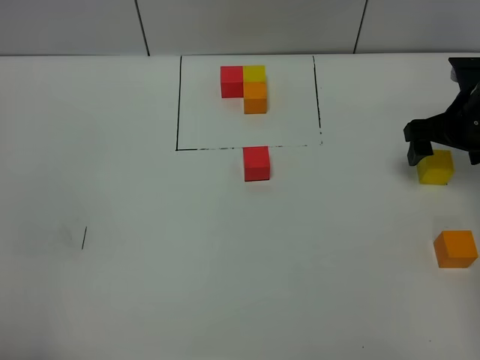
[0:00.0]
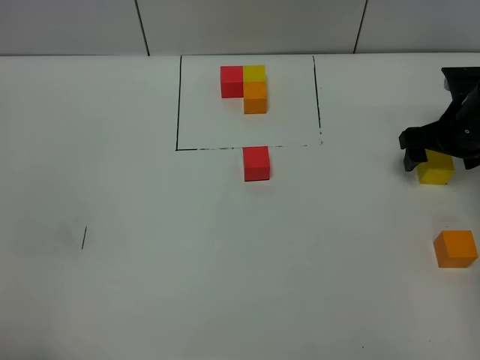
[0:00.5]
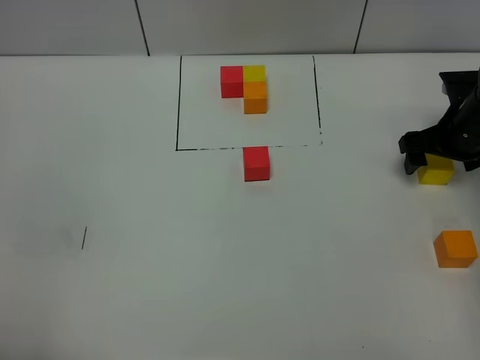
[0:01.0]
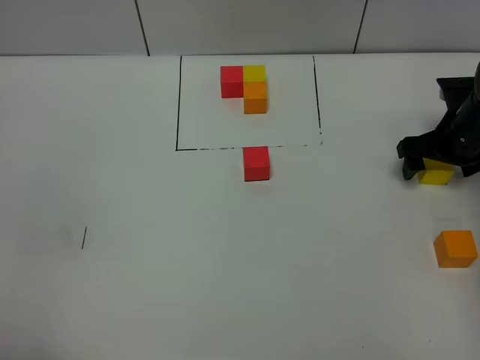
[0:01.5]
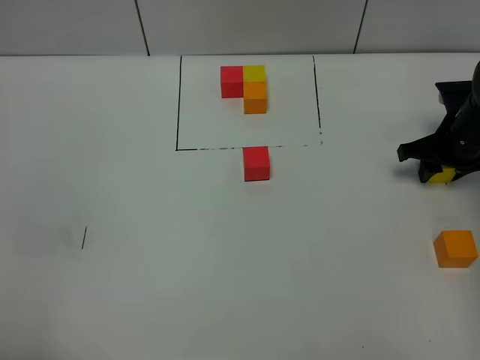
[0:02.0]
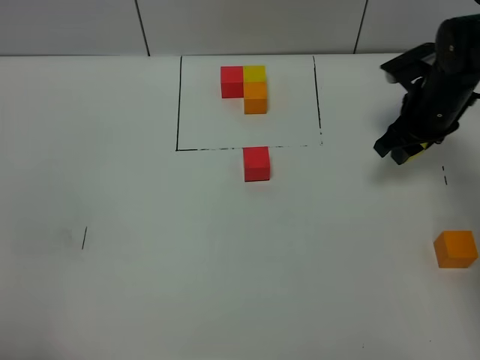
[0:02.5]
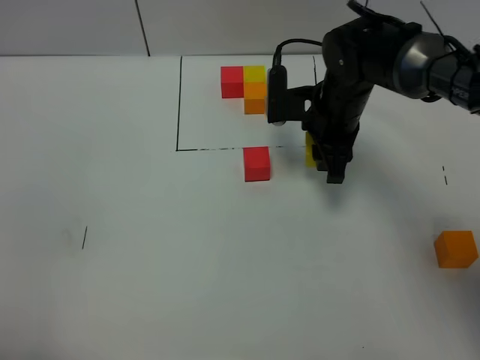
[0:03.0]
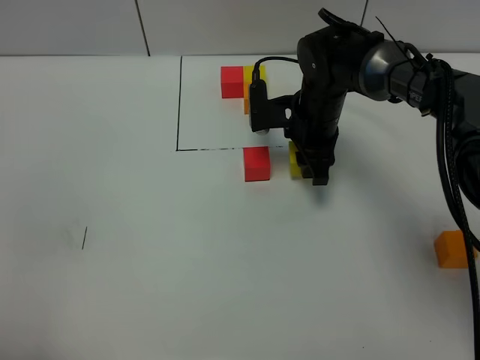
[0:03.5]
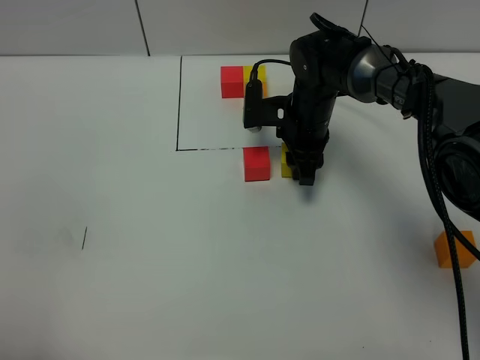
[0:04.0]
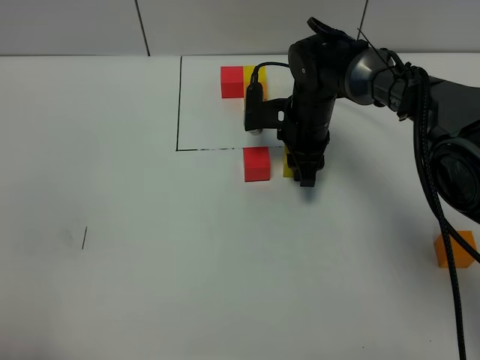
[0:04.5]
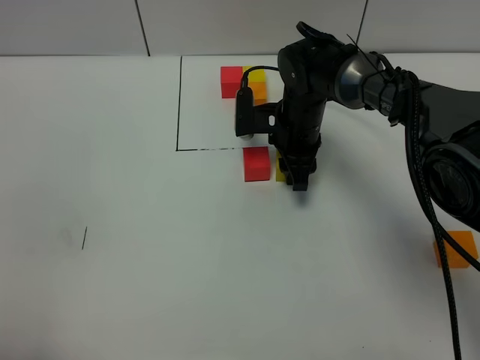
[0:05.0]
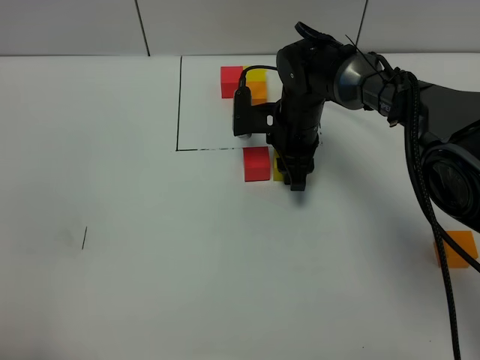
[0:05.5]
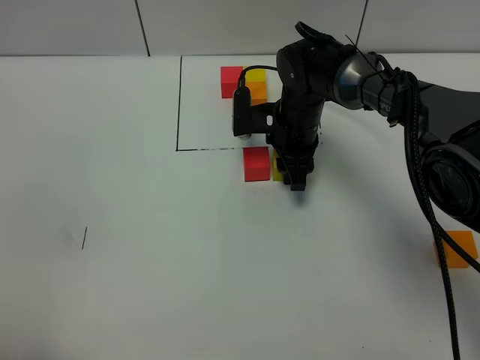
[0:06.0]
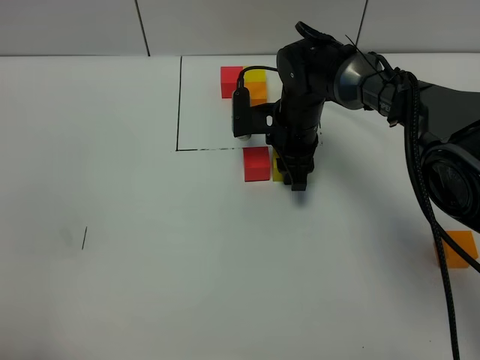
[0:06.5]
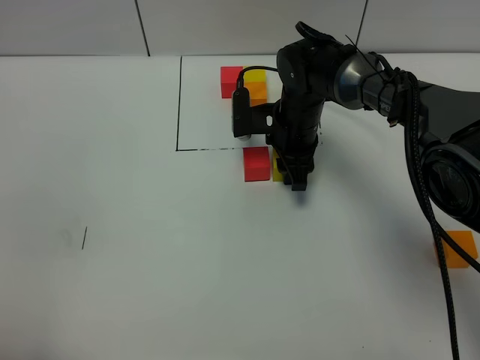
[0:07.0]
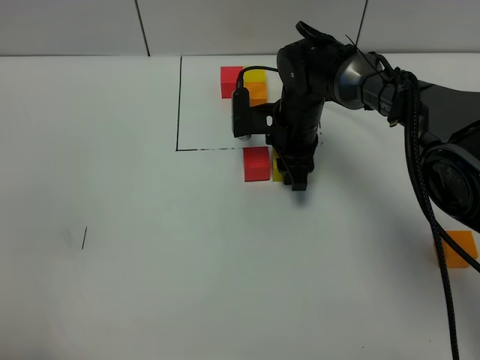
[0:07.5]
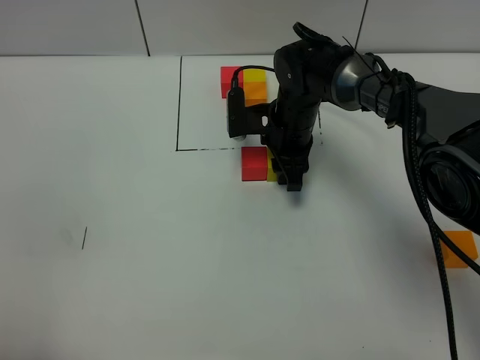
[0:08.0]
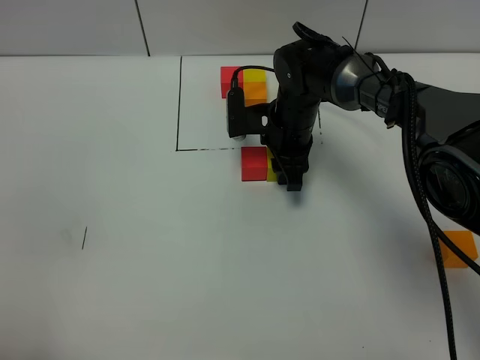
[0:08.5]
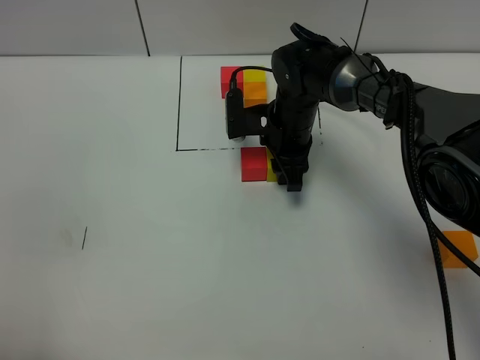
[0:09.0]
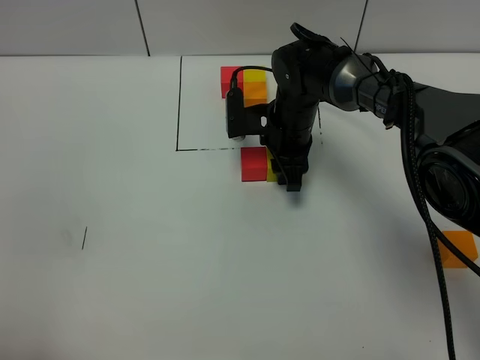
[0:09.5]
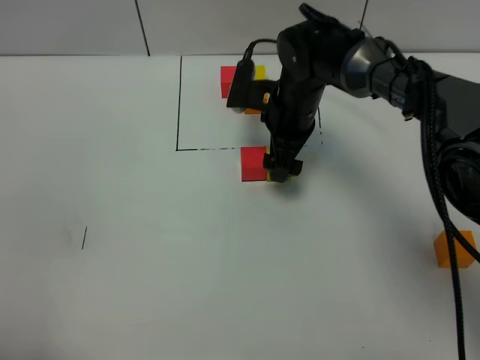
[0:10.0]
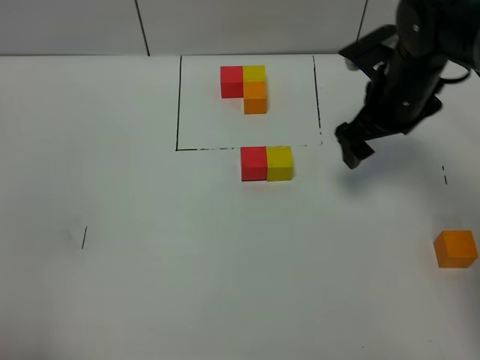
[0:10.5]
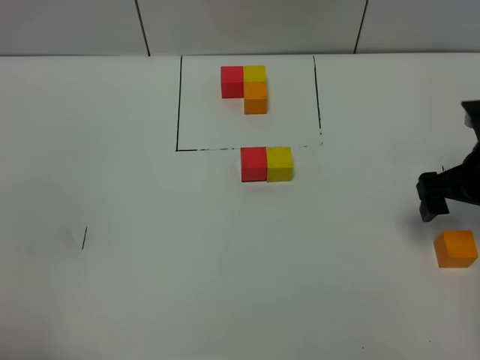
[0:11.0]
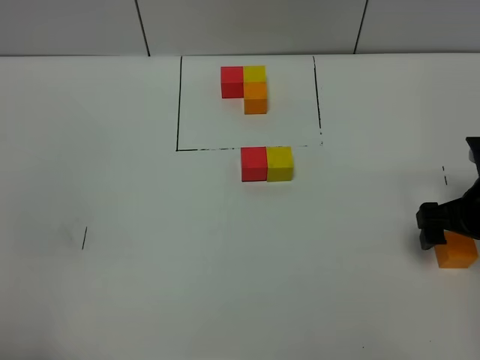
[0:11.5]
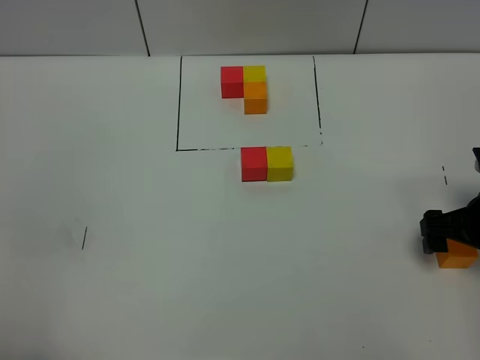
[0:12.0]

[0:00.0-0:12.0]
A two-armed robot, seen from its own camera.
Task of the whole recording: According to the building block template in front, assemble the scattered blocks together.
Step, 0:00.0 to 0:09.5: Put the yellow build block on the right of the red build block.
0:00.0 to 0:02.0: The right gripper changes place by approximately 5 cm, and closes up.
0:02.0 to 0:04.0: The right gripper is displaced to the left by roughly 20 cm.
0:04.0 to 0:06.0: There are only small adjustments of the grippers.
0:06.0 to 0:08.0: The two grippers keep their place.
0:08.0 to 0:10.0: The right gripper opens its fingers.
0:10.0 to 0:12.0: The right gripper heads to the right and backward, covering some 30 cm.

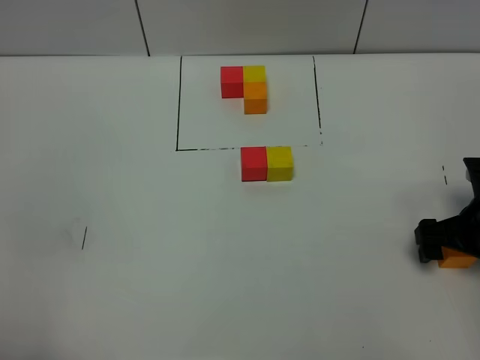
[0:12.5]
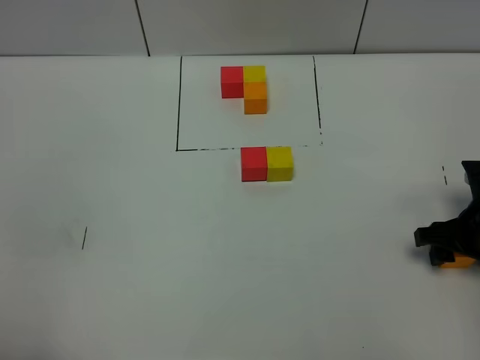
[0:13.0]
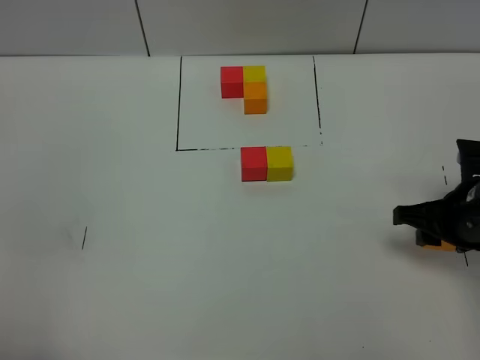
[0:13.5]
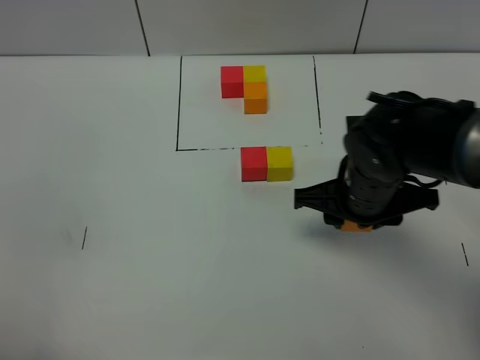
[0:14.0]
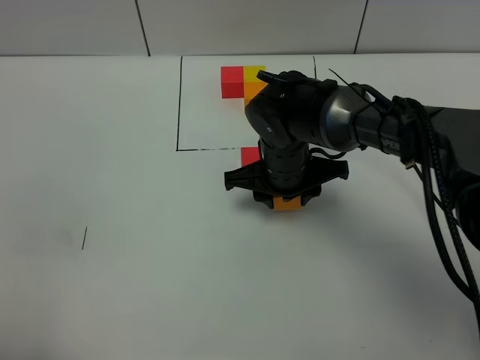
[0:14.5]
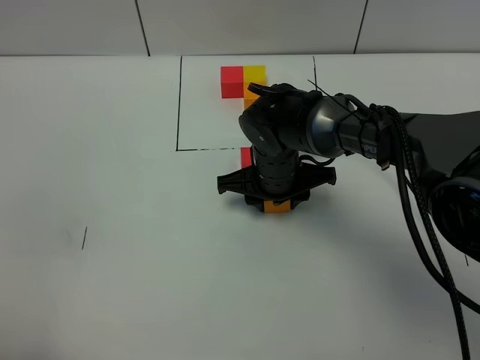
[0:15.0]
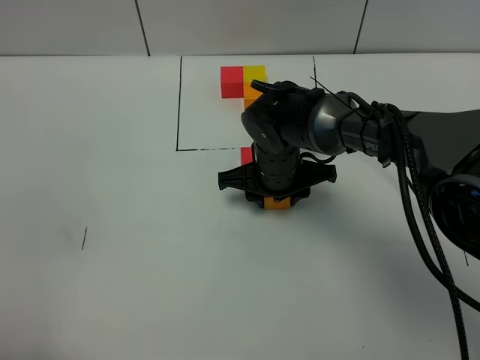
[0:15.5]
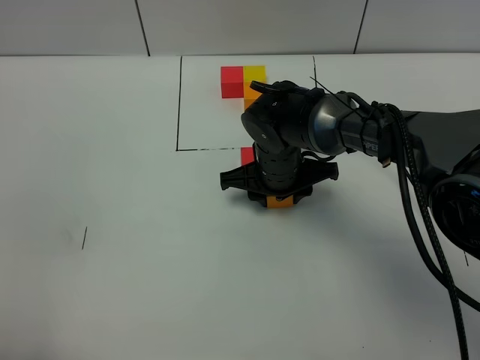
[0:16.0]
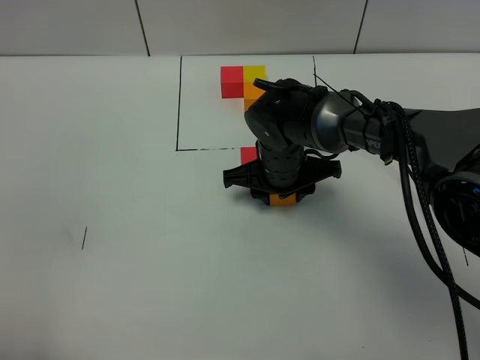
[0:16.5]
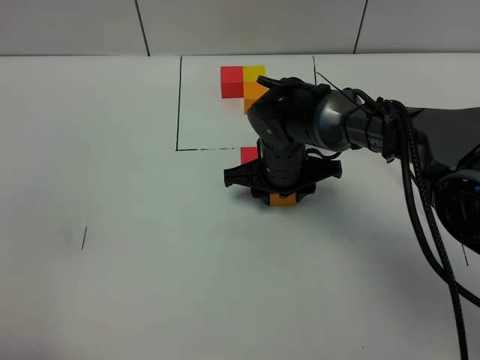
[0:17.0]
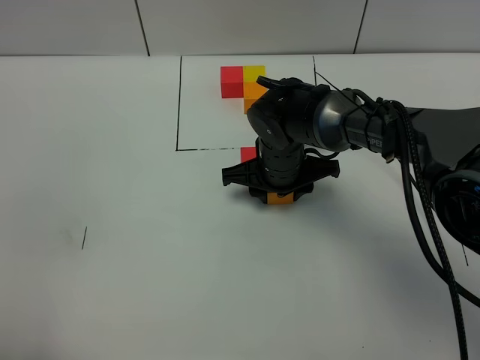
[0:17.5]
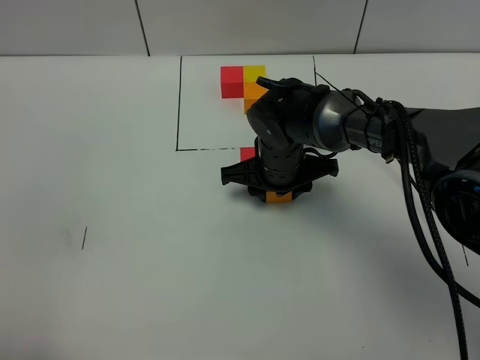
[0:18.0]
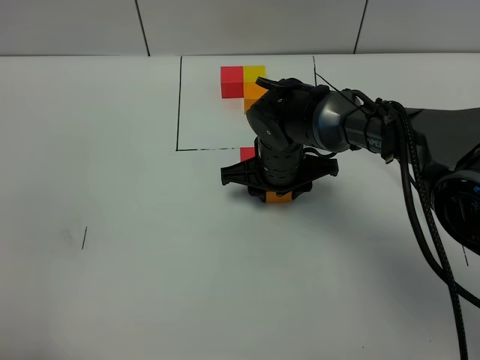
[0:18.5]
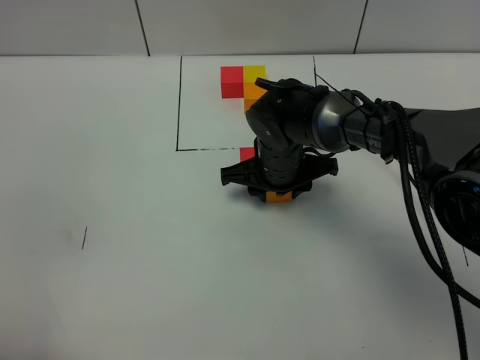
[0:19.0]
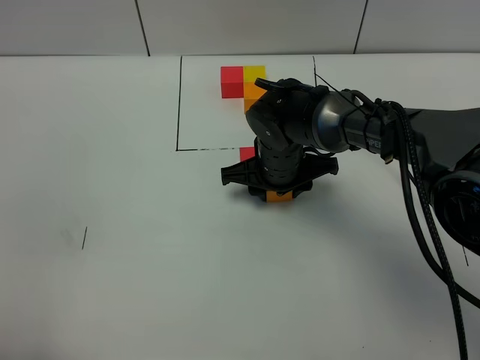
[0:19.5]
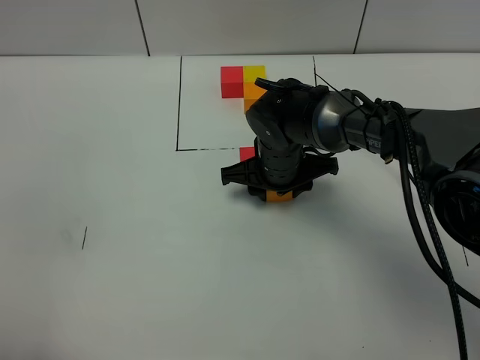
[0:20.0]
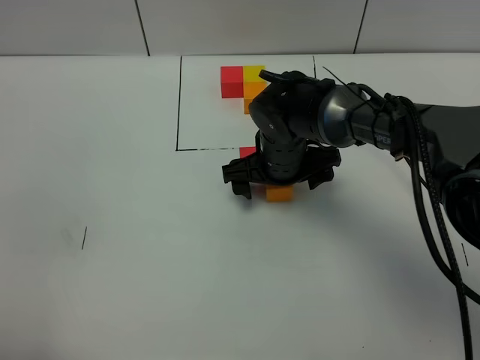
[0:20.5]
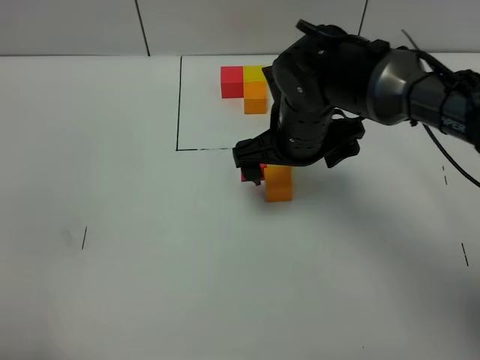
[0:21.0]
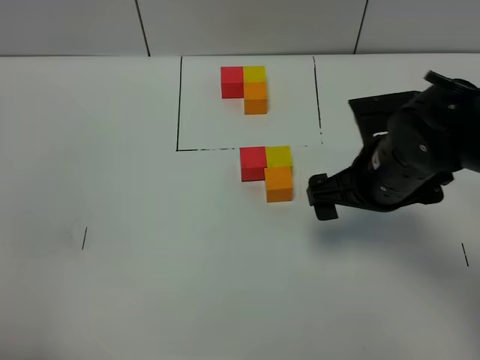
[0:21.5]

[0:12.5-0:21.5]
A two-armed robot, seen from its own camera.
Task of the whole recording: According to the building block template in front, assemble the scattered blocks together.
Step, 0:12.5 to 0:20.0: Put the orange build block on the behind of the yellow build block.
0:12.5 to 0:14.5: The right gripper heads to the left and forward, covering roughly 25 cm, and closes its fingers.
0:14.5 to 0:17.0: The grippers move only a little.
0:17.0 to 0:19.5: Neither gripper changes place.
0:19.5 to 0:21.5: The right gripper moves backward, to the right and upward, some 15 cm, and opens up.

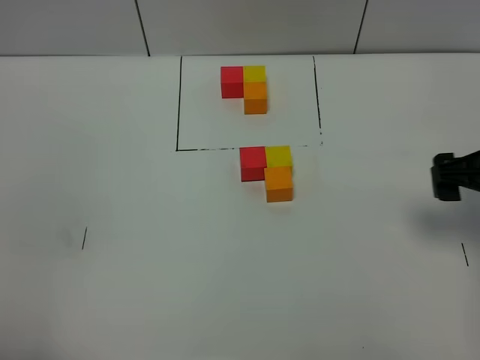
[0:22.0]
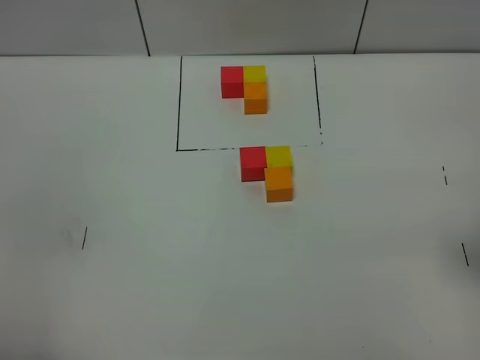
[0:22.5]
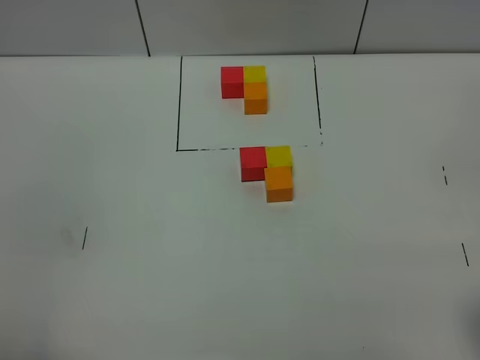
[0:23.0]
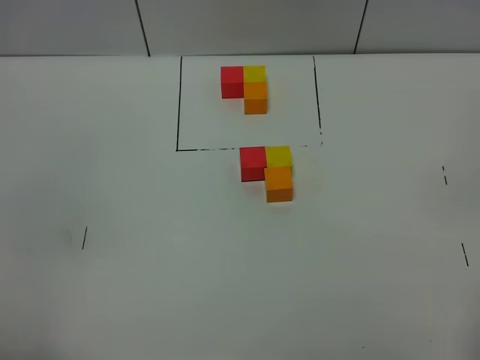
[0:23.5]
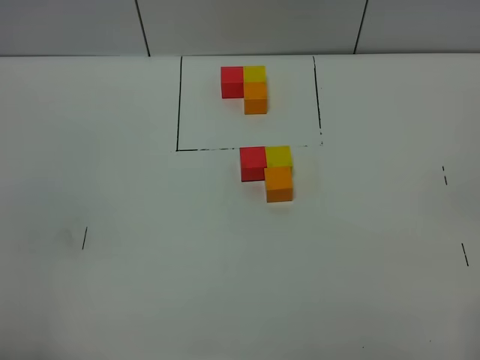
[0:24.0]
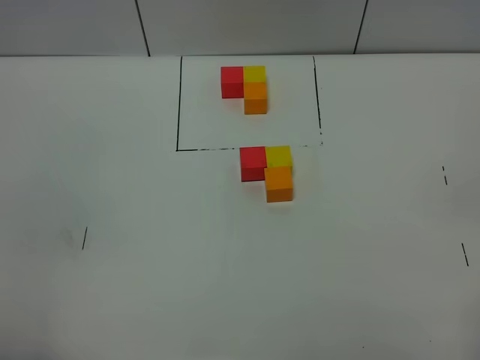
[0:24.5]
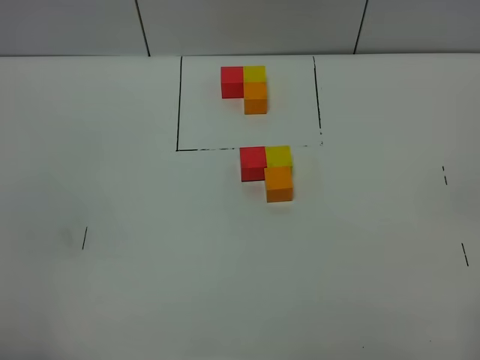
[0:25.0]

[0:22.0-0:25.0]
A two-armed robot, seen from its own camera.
Task of the whole recording: According to the building block template in front, assemble the scattered blocks together.
0:22.0 to 0:23.5: The right gripper moves backward, some 25 cm.

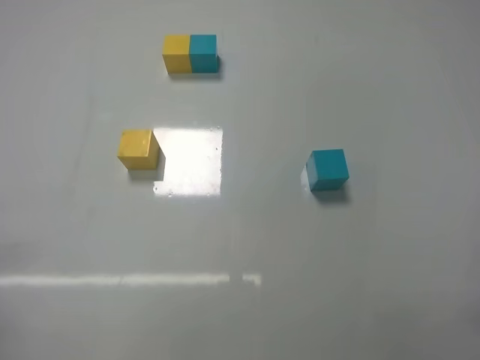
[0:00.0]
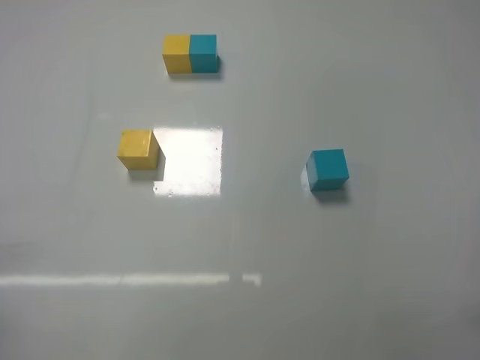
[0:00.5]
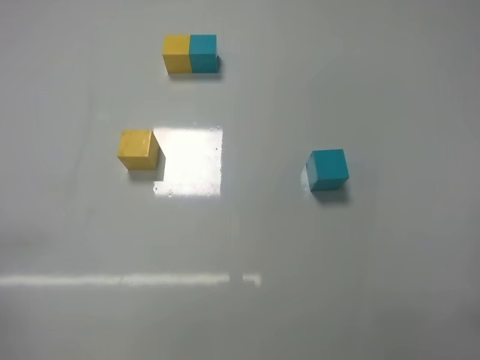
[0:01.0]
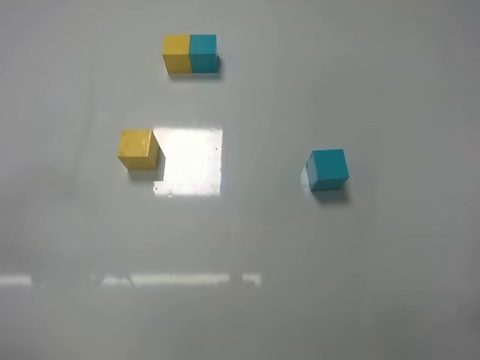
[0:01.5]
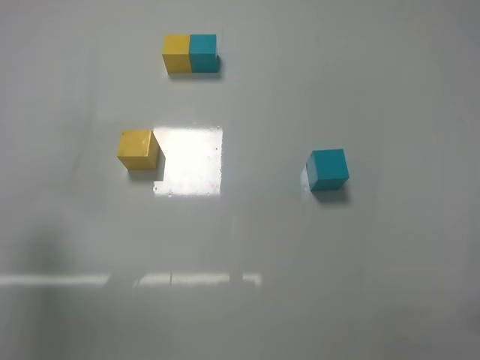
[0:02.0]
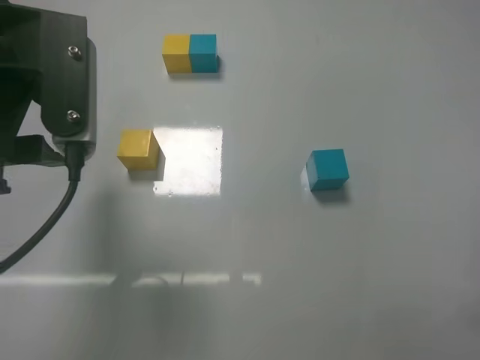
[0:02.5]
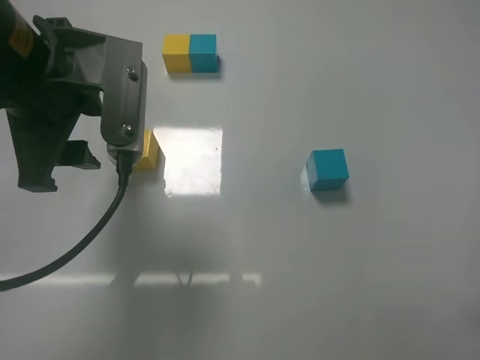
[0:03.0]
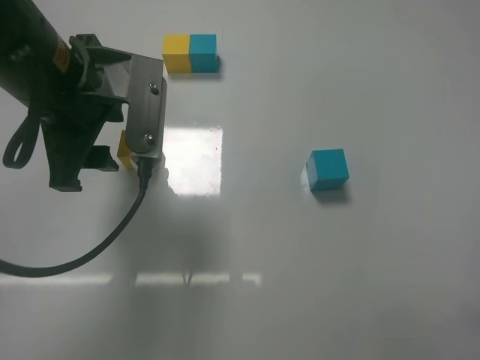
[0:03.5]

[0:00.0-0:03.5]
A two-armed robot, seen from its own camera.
Task of the whole recording: According to the building block template in front, assemble the scattered blocks together.
0:00.0 to 0:02.0: The left gripper is displaced upward, forward and to the right by about 25 cm.
0:02.0 to 0:03.5: The left gripper travels forward and to the right by approximately 15 cm.
